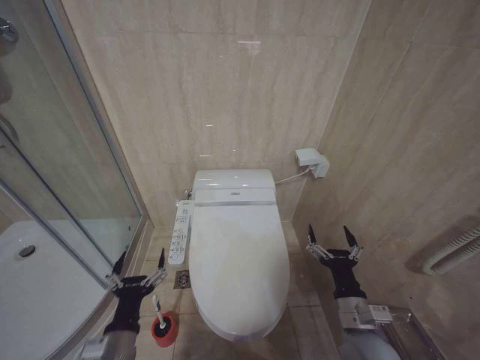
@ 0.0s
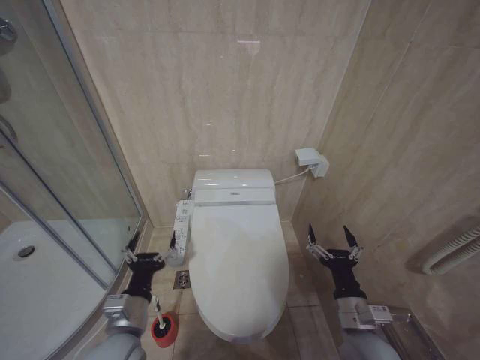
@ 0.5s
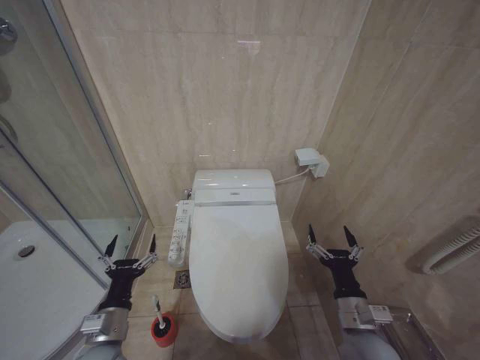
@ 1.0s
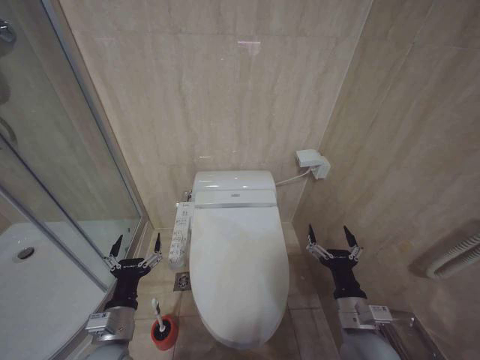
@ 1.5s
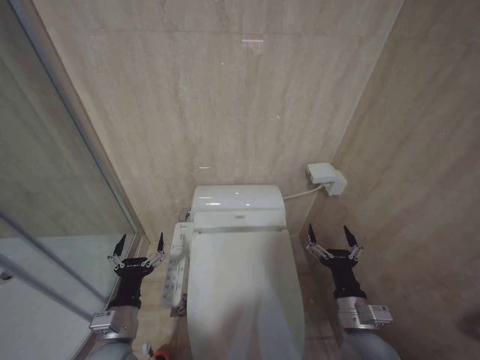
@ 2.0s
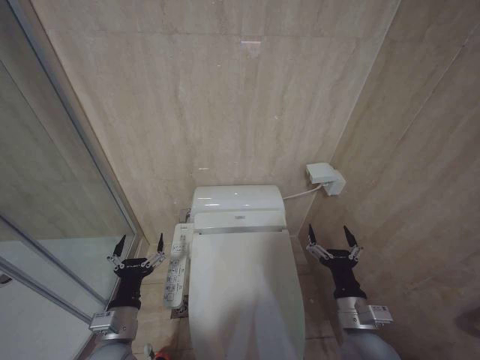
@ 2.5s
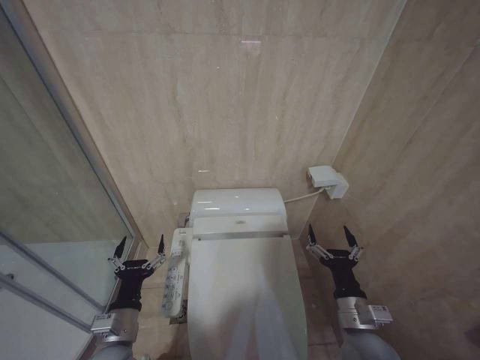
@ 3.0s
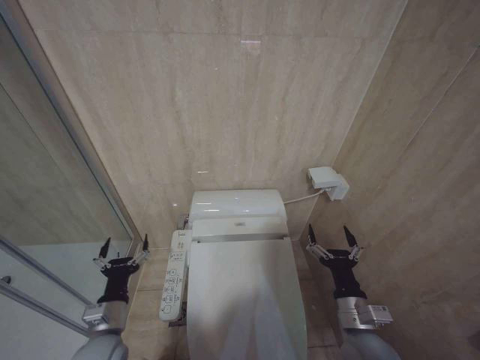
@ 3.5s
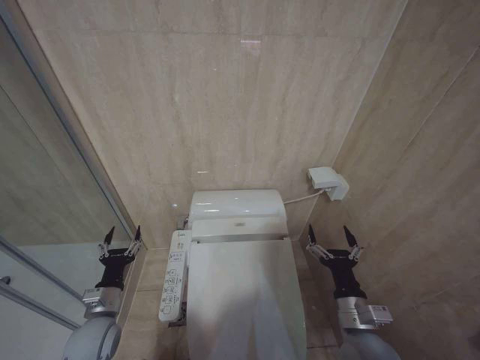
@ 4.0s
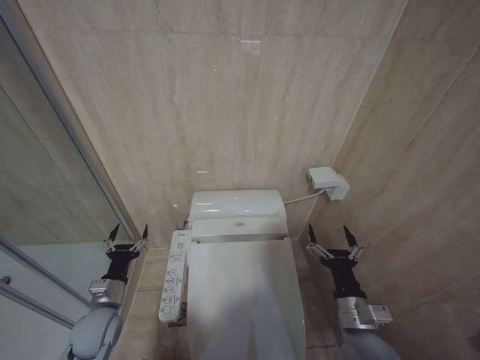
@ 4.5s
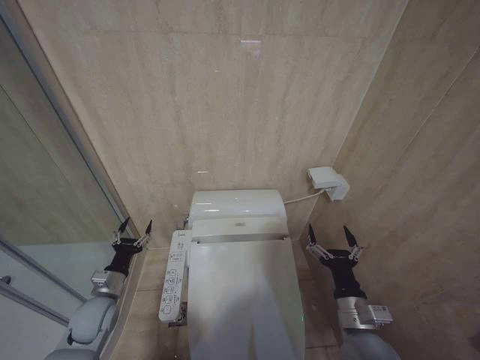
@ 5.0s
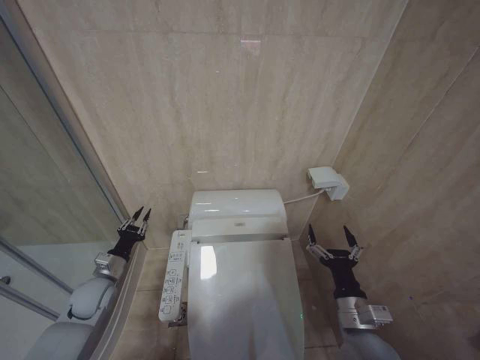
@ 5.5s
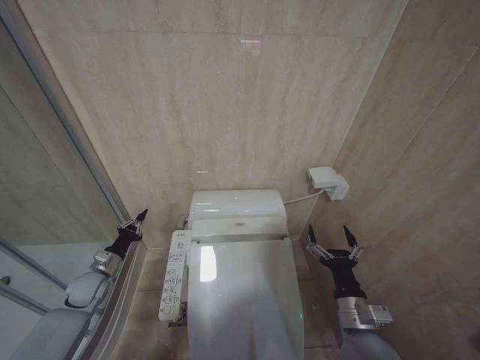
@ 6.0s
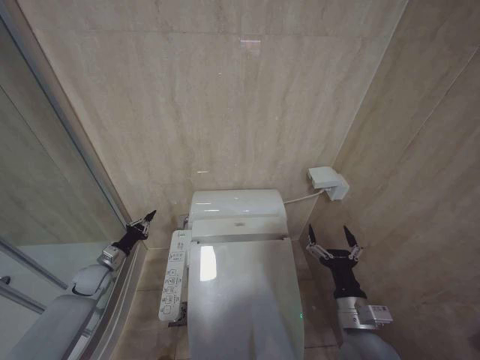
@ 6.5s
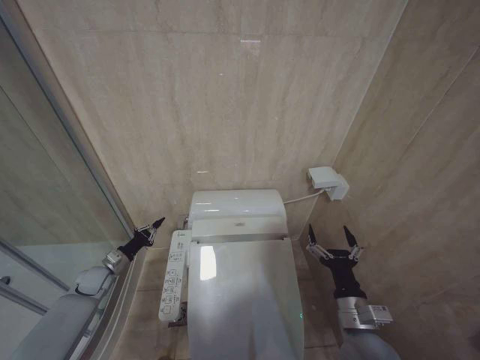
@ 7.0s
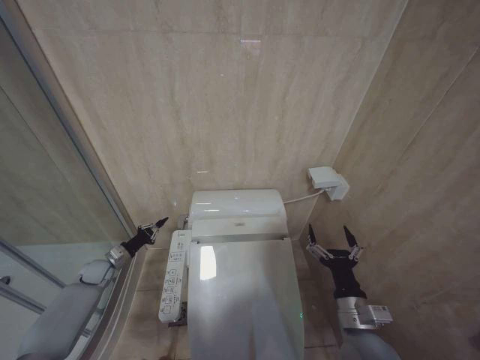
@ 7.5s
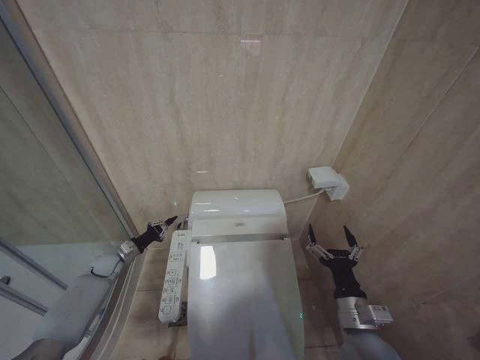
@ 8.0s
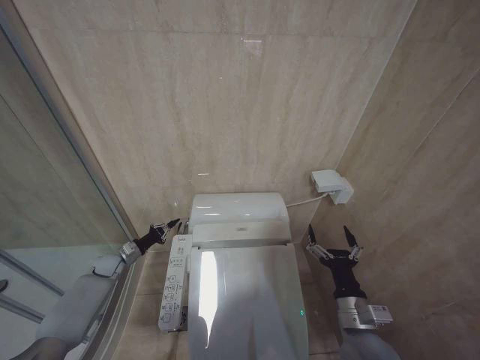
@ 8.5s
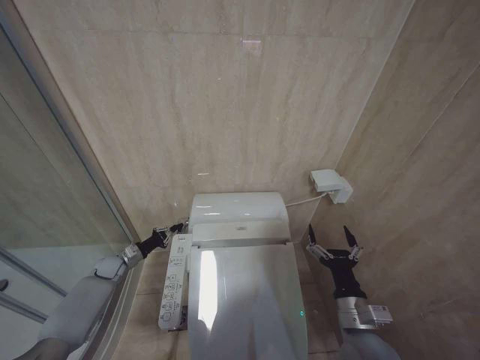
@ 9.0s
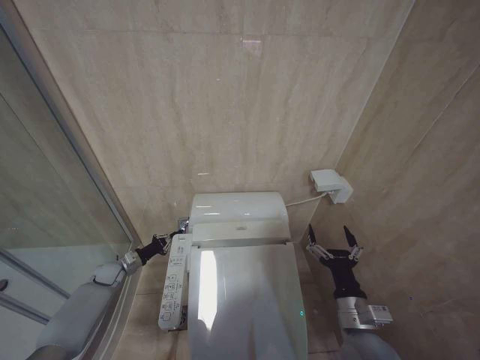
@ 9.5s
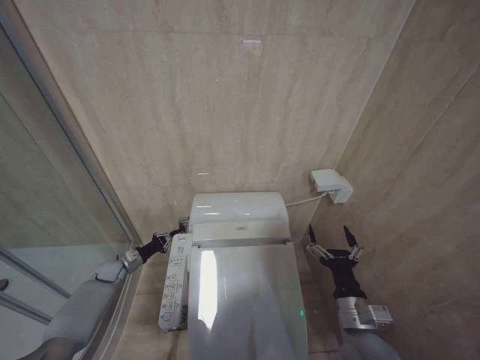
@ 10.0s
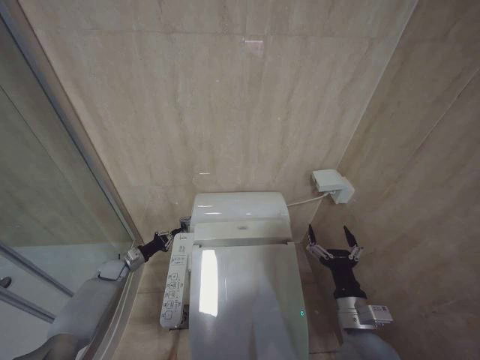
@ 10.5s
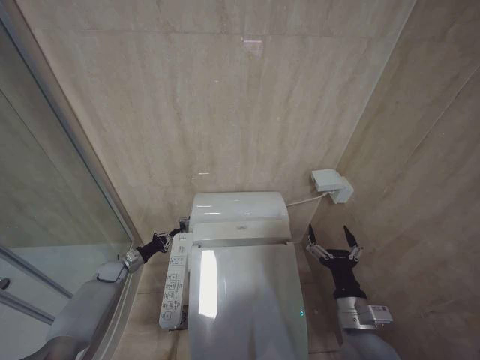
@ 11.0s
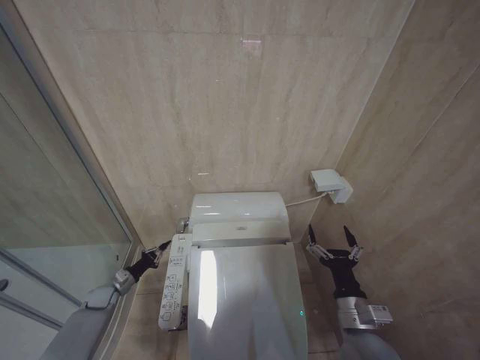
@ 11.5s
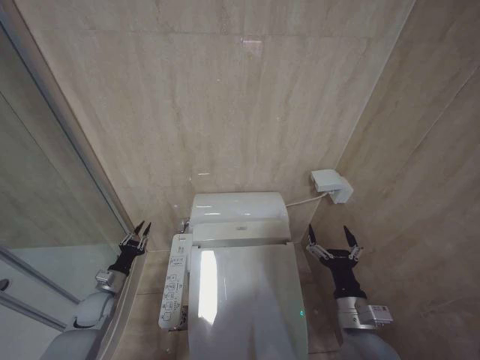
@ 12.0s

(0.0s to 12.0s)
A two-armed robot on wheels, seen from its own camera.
Task of the whole recording: Open the toilet lid, clean the toilet bowl with a toilet brush, close the toilet lid, and flush.
0.0s - 2.0s: The left gripper is displaced forward by about 5 cm.
2.0s - 4.0s: The left gripper heads to the left and forward, covering some 10 cm.
4.0s - 6.0s: The left gripper heads forward and to the left, covering roughly 15 cm, and closes its fingers.
6.0s - 8.0s: The left gripper goes about 10 cm forward.
8.0s - 10.0s: The grippers make only small movements.
10.0s - 12.0s: The left gripper is displaced backward by some 10 cm.

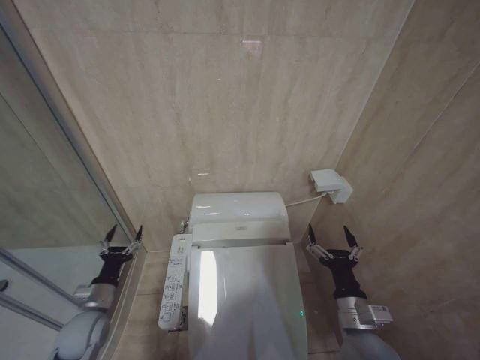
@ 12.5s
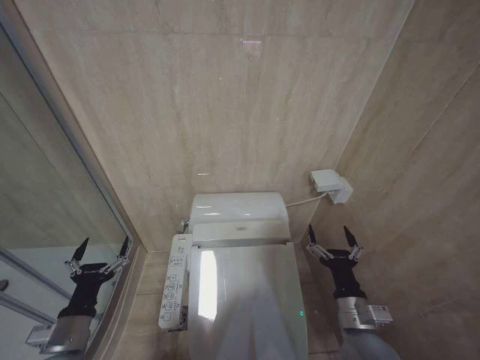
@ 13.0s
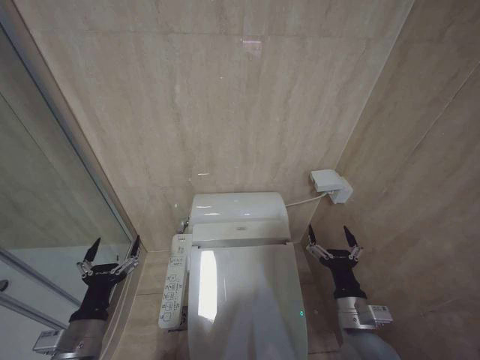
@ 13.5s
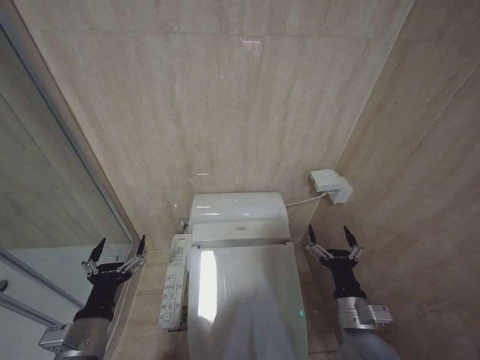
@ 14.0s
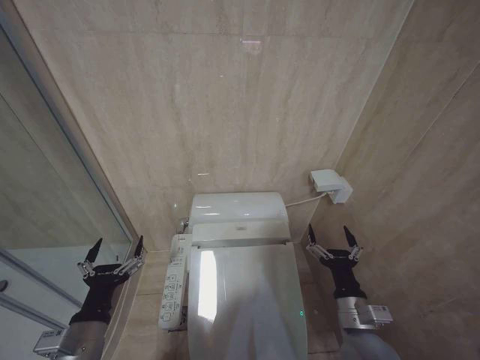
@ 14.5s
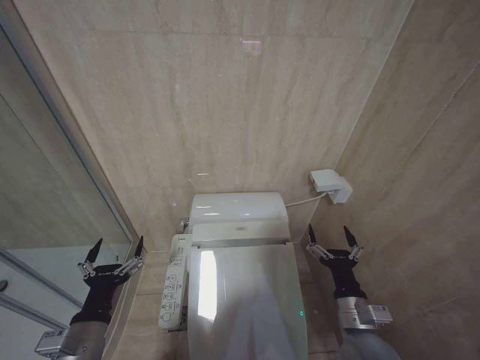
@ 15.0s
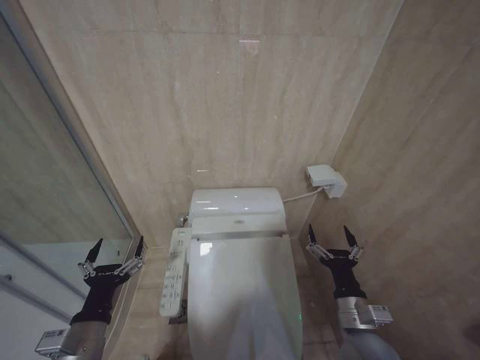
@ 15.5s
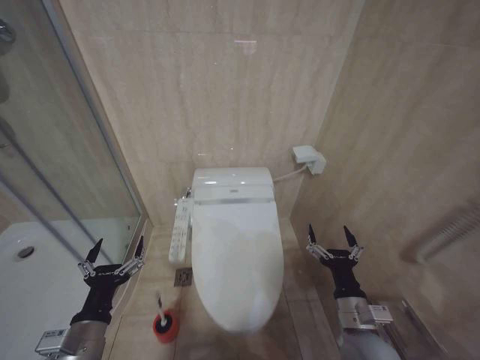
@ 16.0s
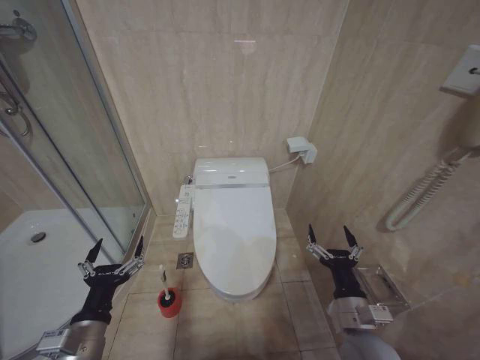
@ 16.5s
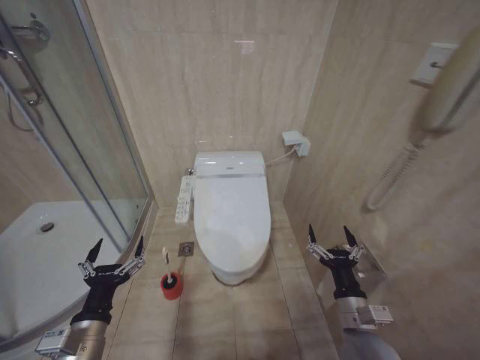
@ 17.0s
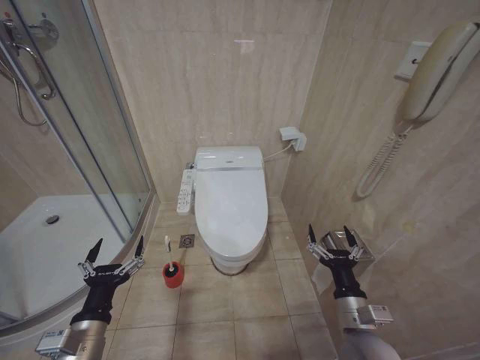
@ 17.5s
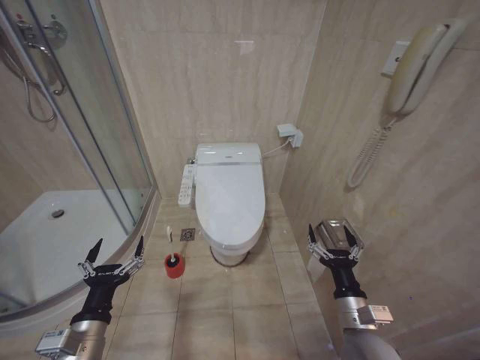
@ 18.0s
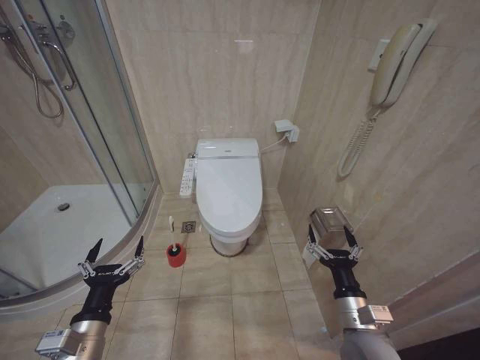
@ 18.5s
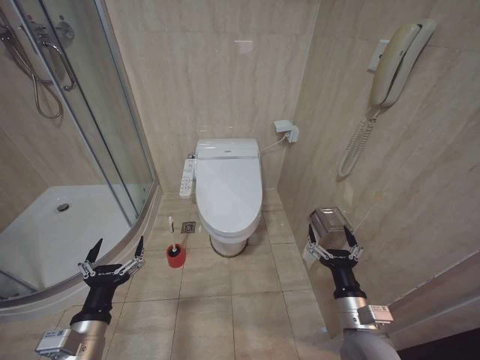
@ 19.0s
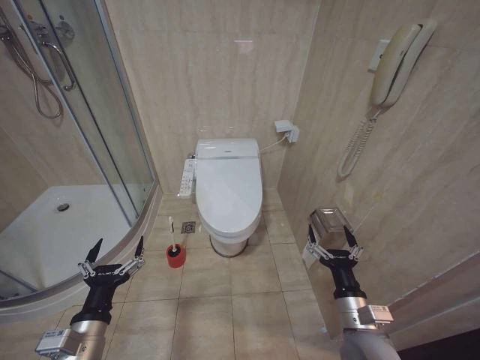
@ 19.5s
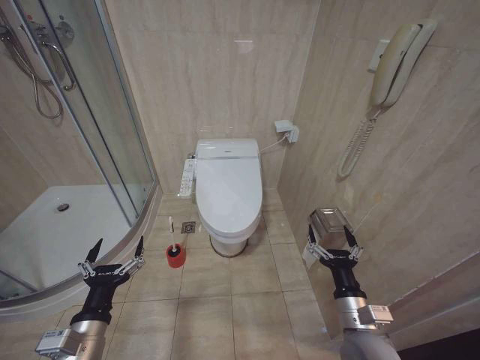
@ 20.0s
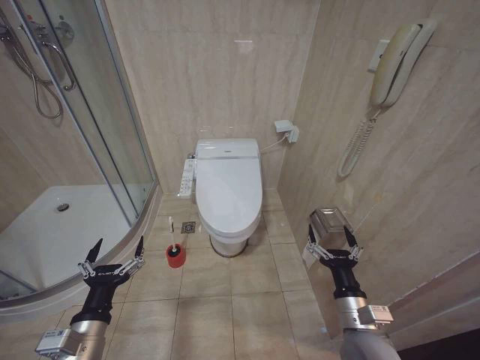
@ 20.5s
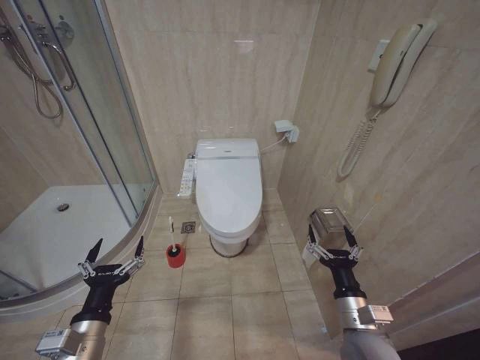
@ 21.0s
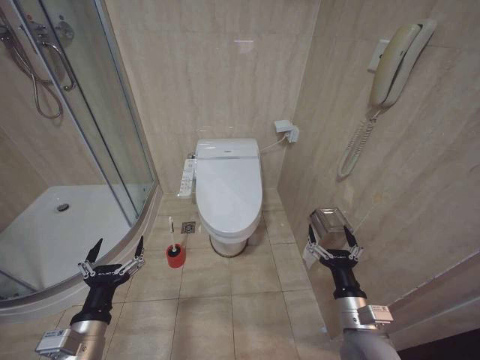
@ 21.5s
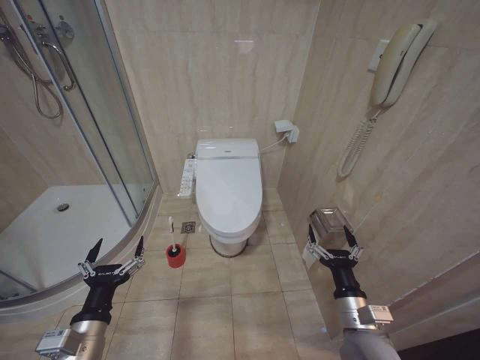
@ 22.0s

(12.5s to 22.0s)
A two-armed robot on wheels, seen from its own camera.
Task of the whole recording: Open the toilet lid, clean the toilet bowl with a toilet brush, close the toilet lid, and flush.
12.5s - 14.5s: The left gripper goes some 20 cm backward, upward and to the right.
18.0s - 22.0s: The two grippers keep their place.
